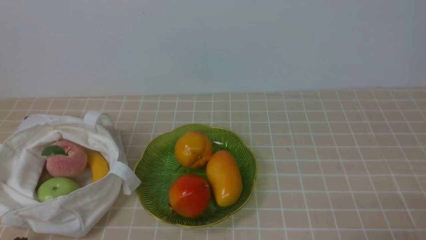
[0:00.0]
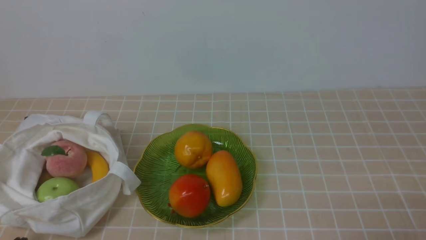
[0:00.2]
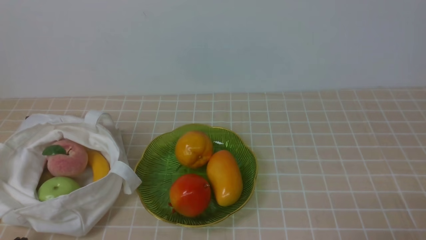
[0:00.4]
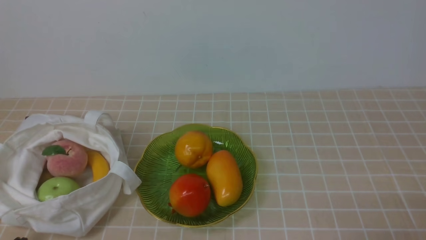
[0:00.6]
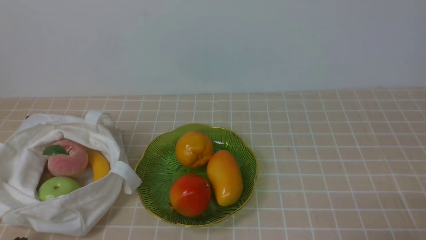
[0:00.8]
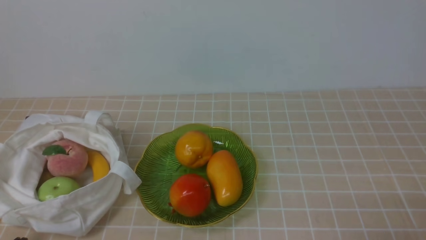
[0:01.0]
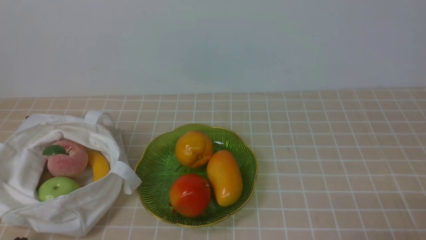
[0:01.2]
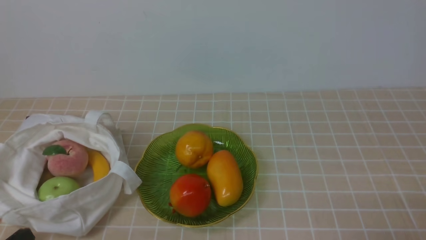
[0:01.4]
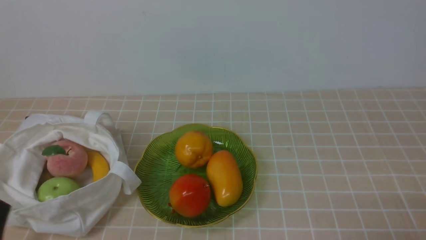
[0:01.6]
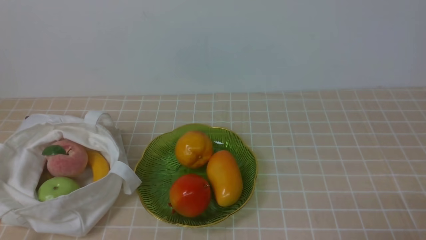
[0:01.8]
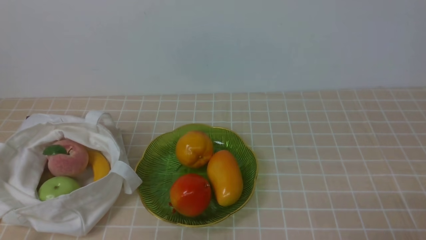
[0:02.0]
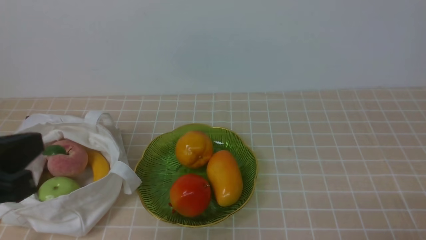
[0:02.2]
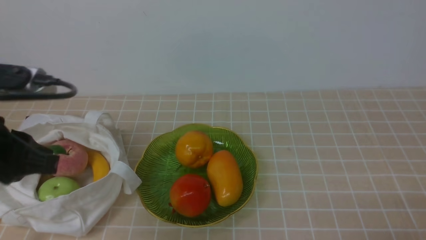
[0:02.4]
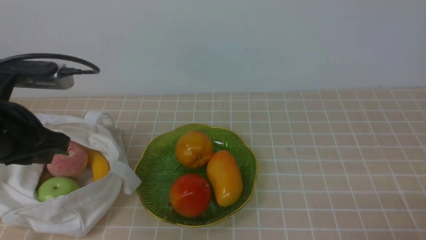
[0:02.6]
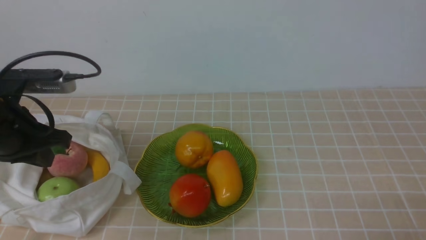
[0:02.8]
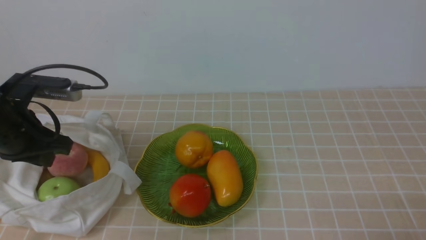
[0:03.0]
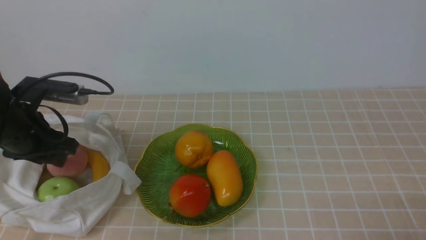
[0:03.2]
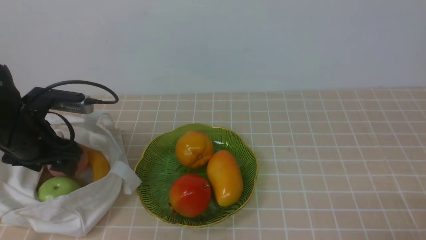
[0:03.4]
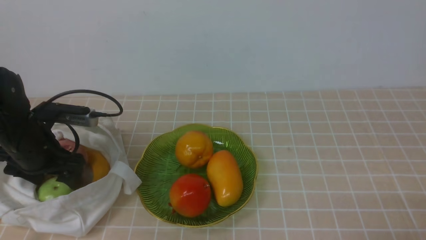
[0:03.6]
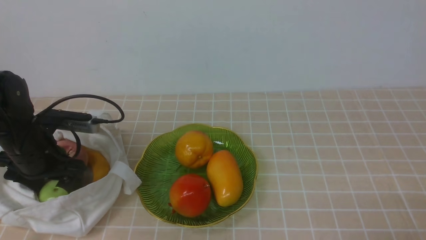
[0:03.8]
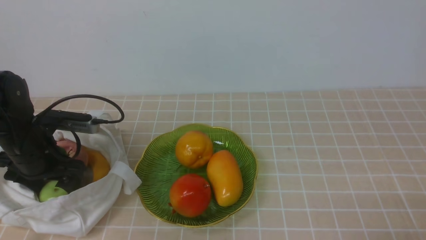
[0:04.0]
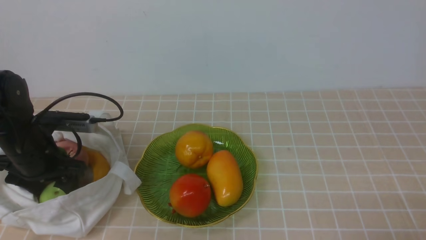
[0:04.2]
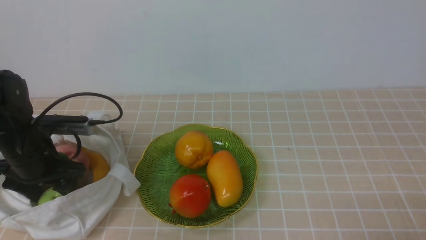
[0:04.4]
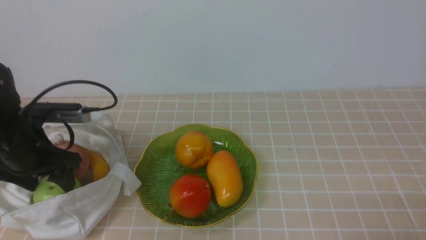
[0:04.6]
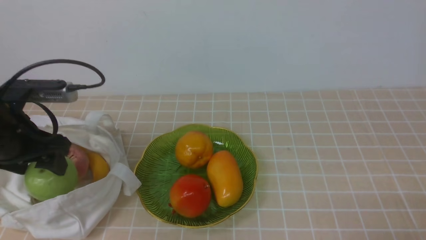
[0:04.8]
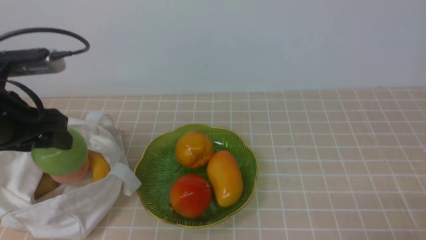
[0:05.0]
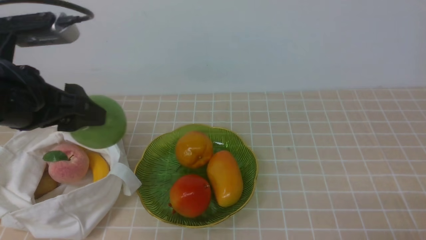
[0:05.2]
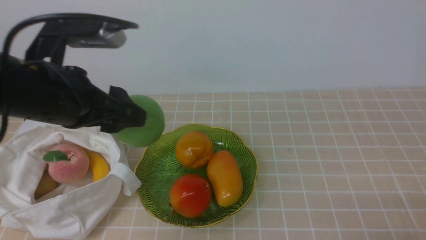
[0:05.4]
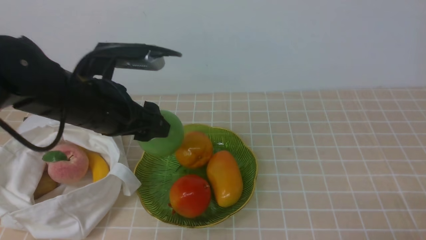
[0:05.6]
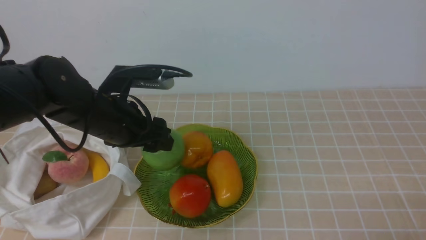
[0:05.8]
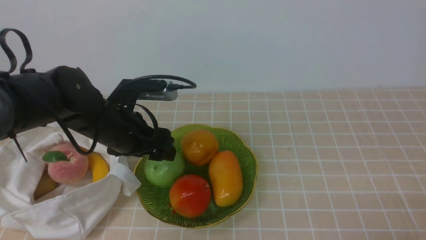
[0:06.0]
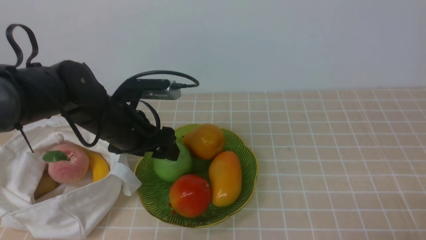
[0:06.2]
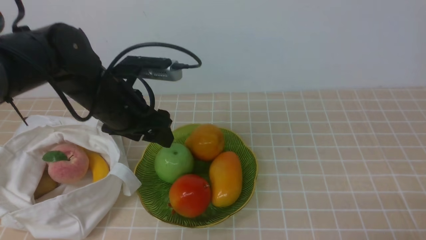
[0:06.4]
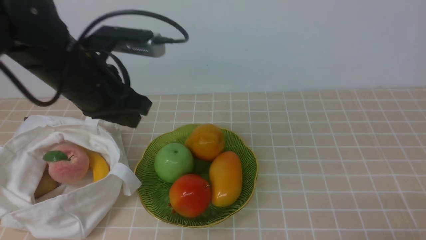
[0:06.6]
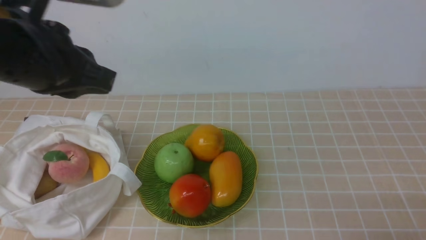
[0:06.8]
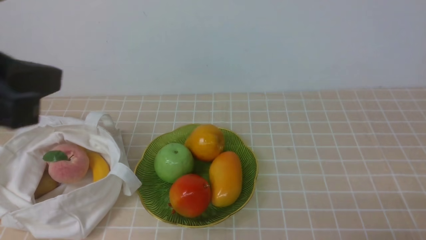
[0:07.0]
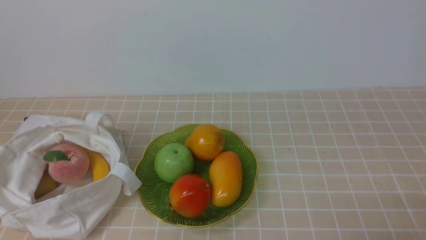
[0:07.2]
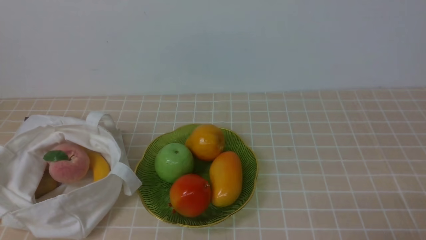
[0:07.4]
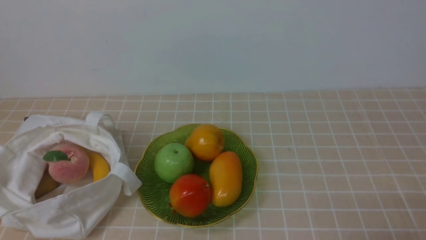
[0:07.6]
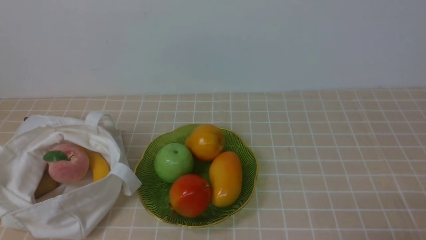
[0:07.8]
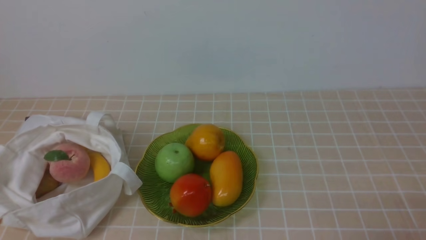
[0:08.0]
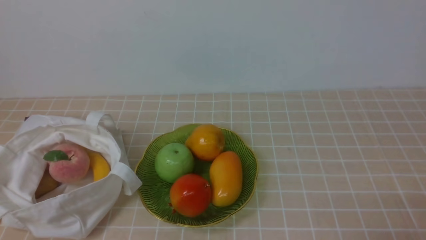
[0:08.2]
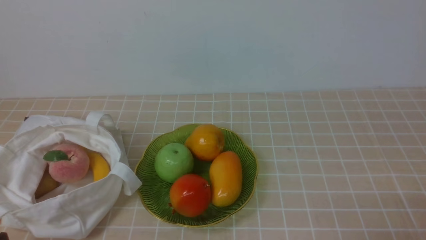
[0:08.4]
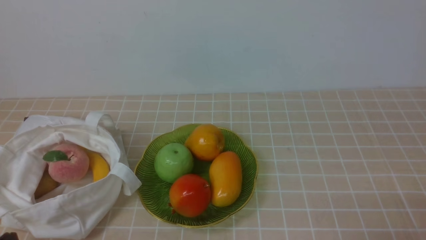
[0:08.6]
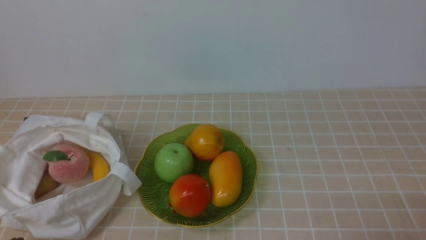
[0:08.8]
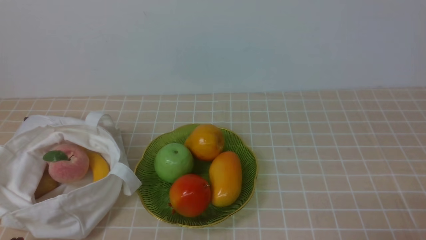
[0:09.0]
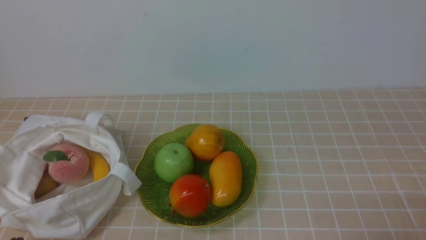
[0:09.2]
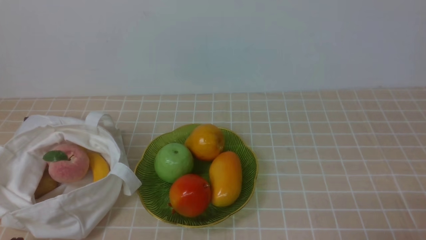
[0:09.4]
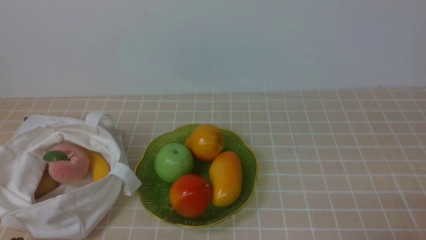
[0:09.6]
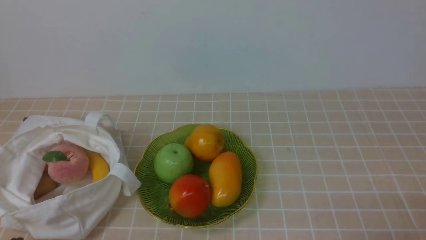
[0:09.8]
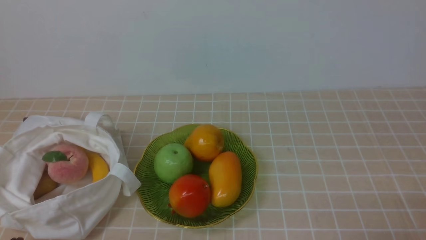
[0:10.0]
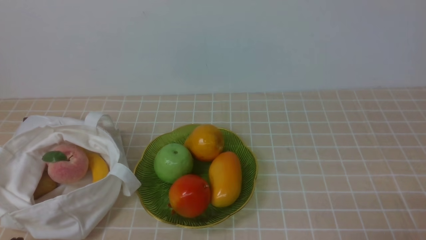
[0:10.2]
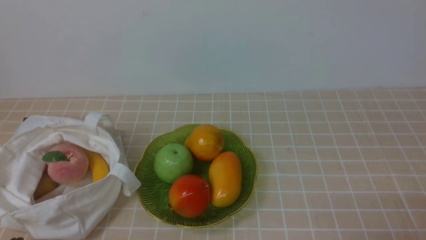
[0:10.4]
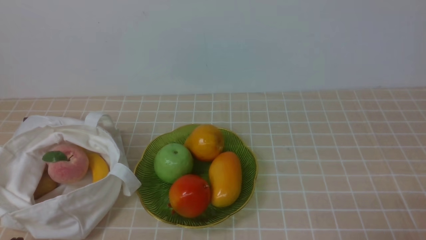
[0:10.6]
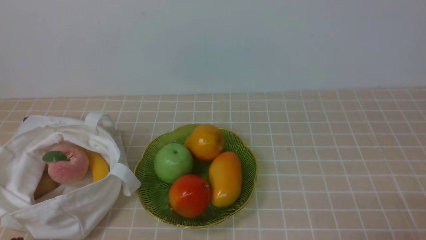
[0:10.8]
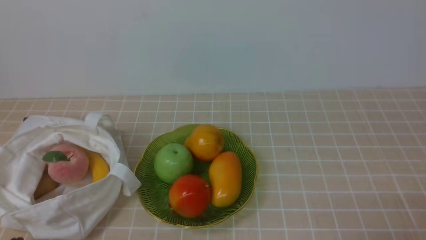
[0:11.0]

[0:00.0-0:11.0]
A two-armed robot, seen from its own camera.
Step, 0:00.0 to 0:04.8: use the left arm to grab an apple from the bag.
Step, 0:05.2 to 0:06.0: use the left arm to put the apple into the empty plate on the right.
0:01.6 to 0:03.2: The left gripper moves forward, about 25 cm, and opens up.
0:03.2 to 0:04.8: There are only small adjustments of the grippers.
0:04.8 to 0:06.2: The left gripper goes roughly 15 cm to the right and forward.
0:06.2 to 0:07.8: The left gripper goes roughly 35 cm backward, and closes its fingers.
0:09.4 to 0:11.0: Both grippers stay about where they are.
